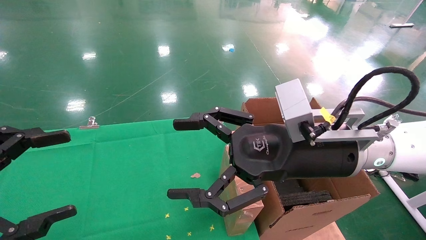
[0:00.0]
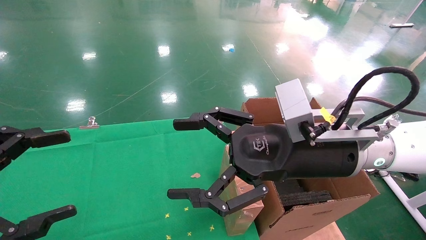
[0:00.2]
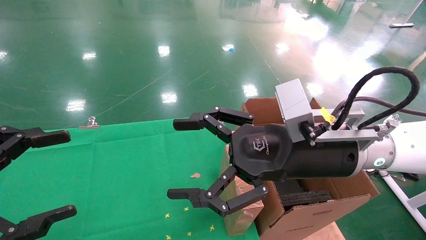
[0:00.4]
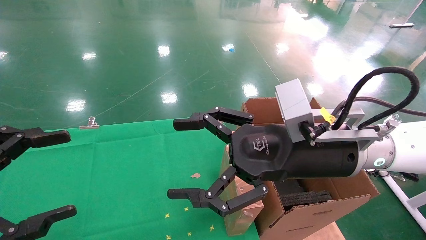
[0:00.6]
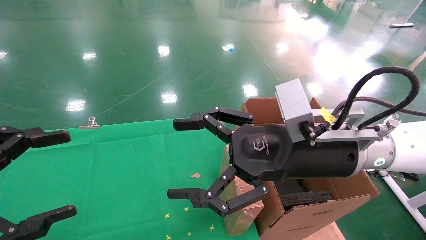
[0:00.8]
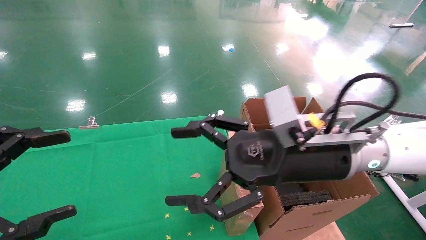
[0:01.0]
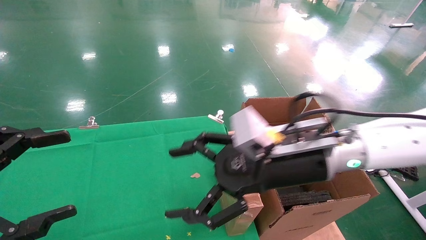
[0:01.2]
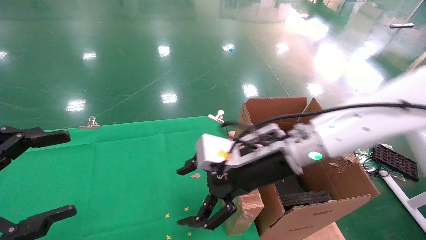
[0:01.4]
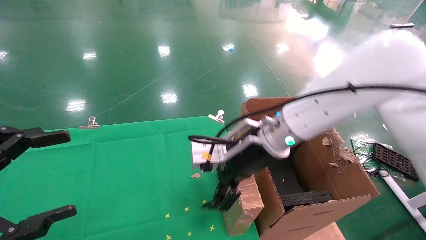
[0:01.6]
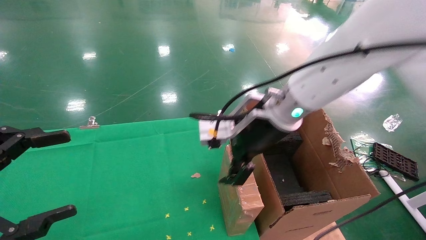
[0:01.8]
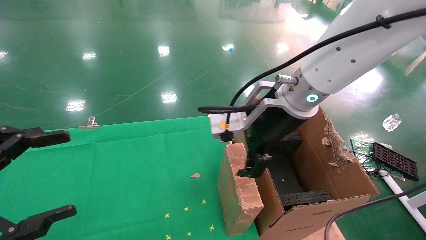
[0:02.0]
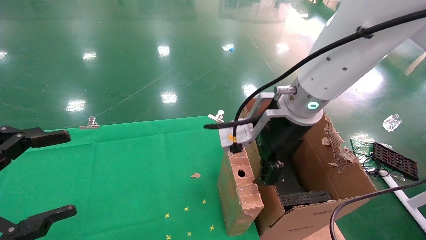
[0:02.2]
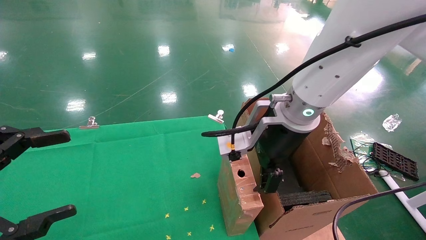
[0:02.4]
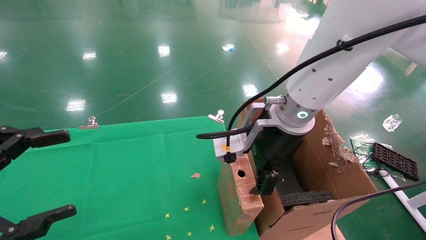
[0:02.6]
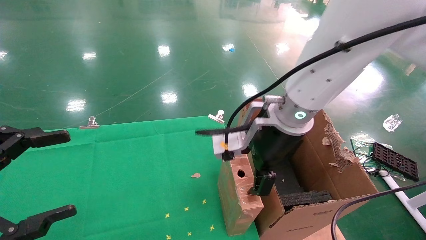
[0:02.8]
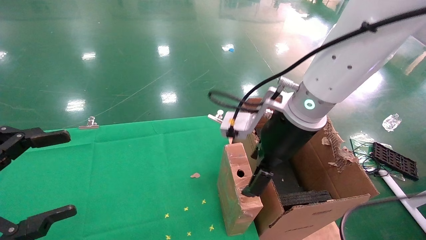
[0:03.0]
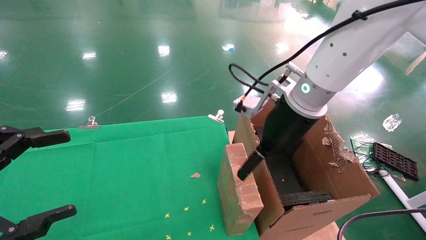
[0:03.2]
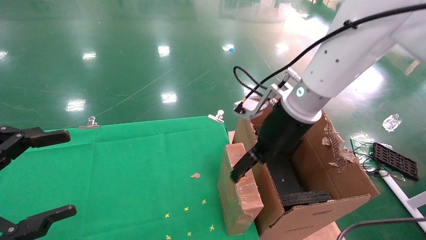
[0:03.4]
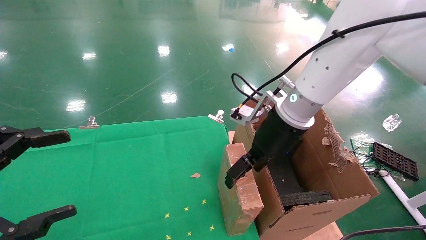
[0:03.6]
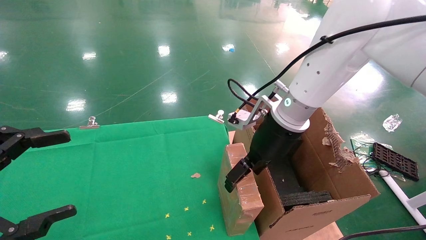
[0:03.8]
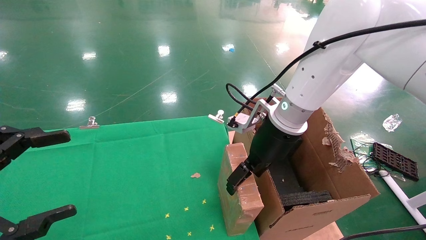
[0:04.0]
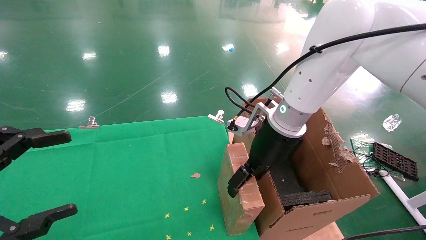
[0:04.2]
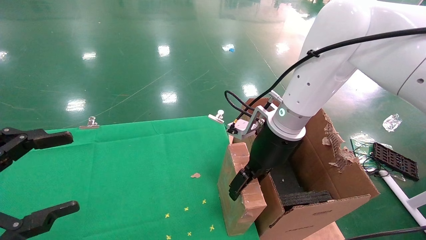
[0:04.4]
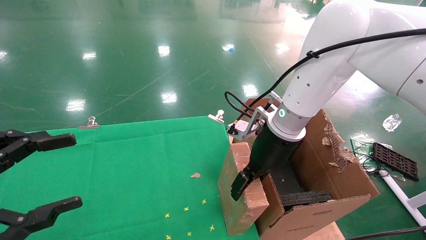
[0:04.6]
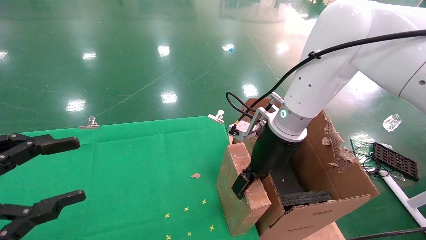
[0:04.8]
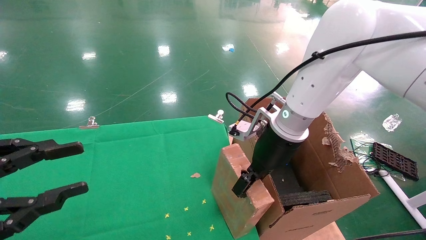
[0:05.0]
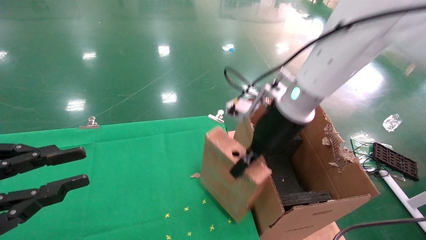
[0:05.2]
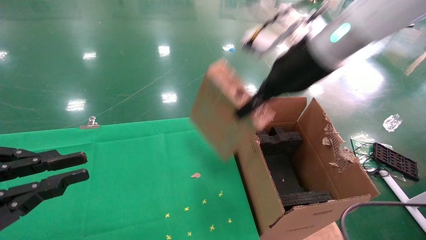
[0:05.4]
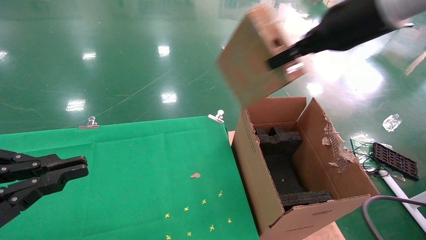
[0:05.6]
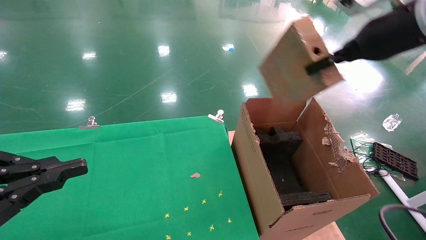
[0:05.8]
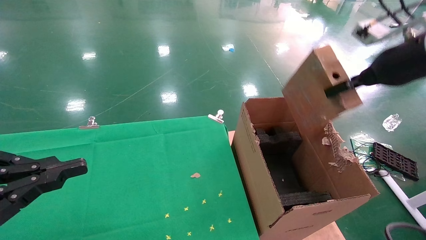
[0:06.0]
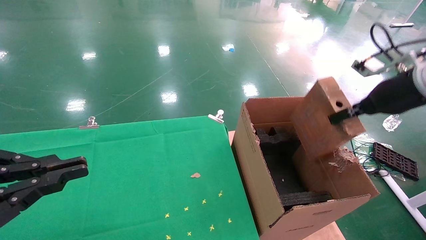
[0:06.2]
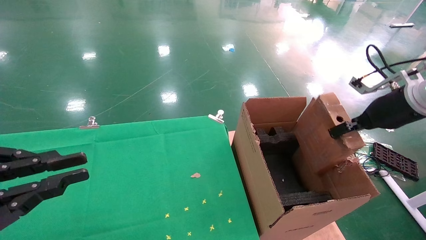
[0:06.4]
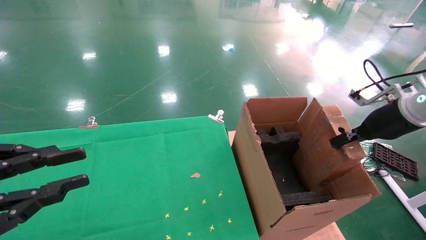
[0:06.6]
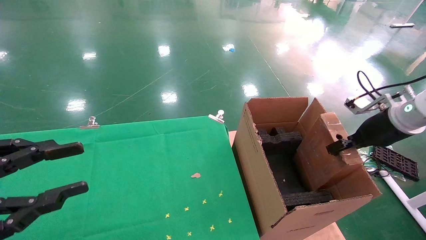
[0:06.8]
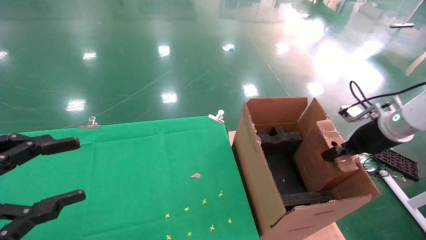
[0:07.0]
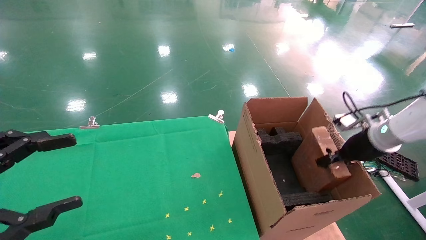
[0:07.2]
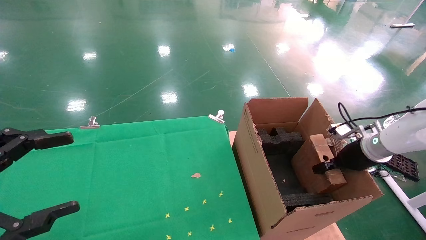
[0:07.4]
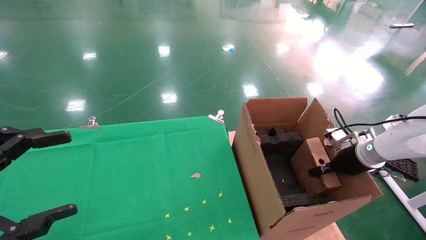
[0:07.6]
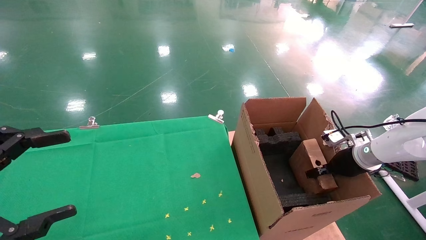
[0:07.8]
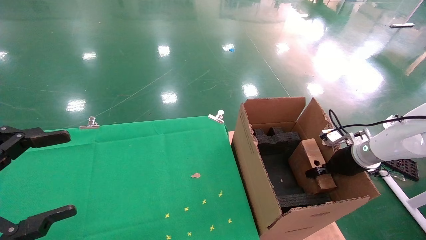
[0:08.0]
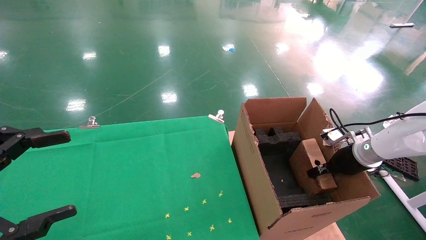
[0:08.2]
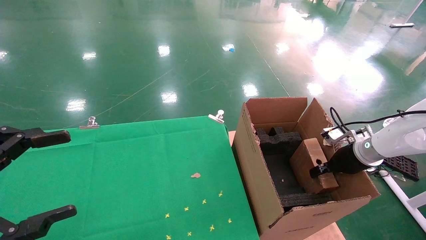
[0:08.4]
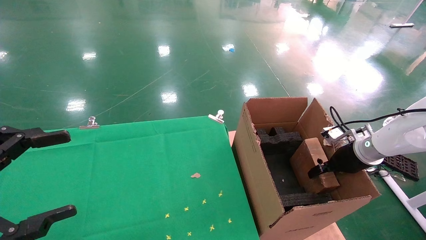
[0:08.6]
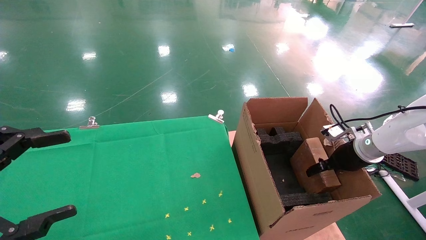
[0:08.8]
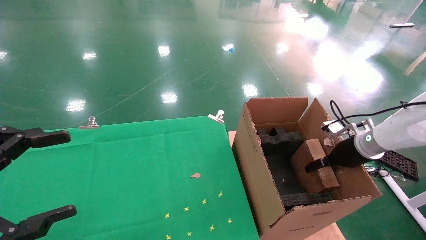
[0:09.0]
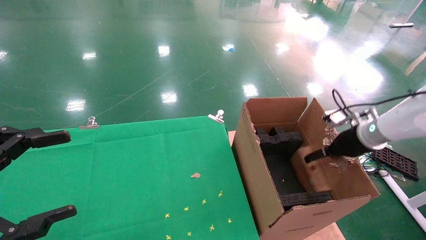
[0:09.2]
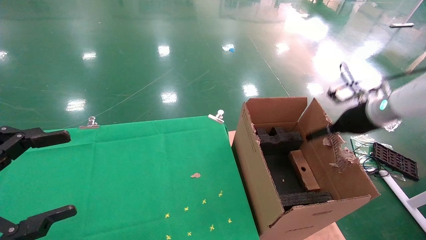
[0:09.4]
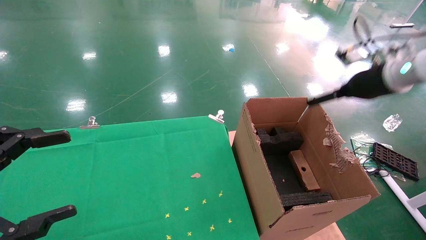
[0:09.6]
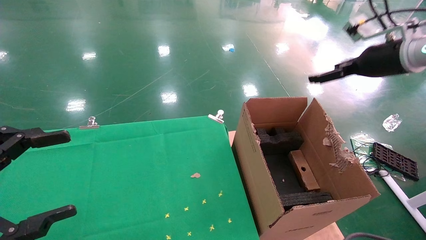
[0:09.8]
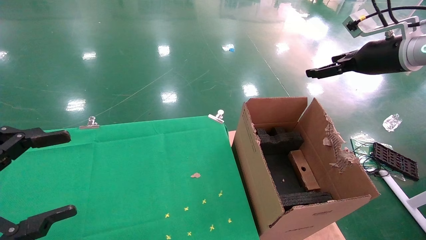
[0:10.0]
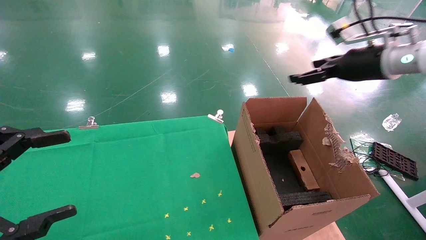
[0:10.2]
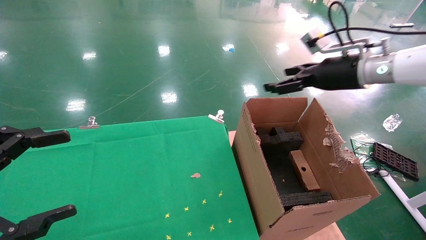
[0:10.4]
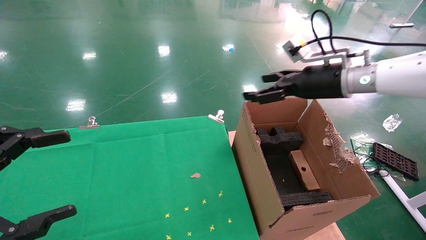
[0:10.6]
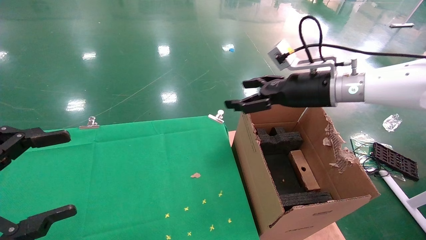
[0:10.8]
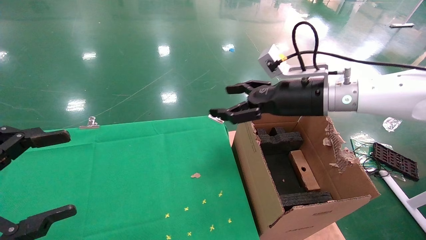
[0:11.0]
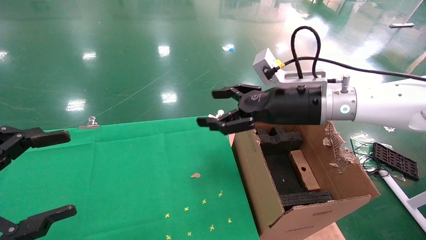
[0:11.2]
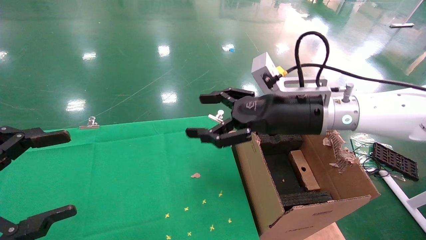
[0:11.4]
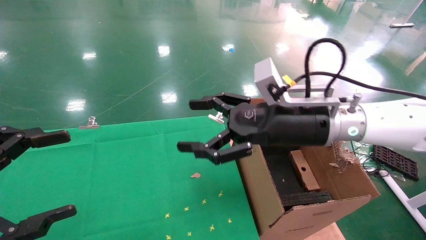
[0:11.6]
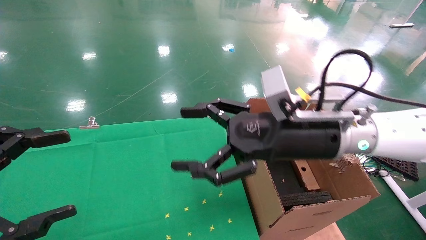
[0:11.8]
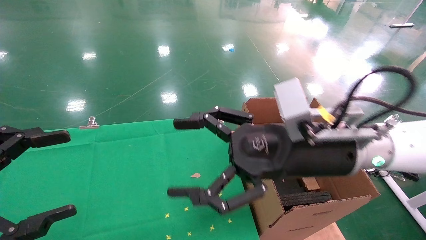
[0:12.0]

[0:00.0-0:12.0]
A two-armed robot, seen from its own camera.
Task of the whole recording: using a robotic arm to pick up a cardboard box and palace it the carton.
Step, 0:01.0 to 0:04.8: Pick up the mouse and the power cord paper box.
Step, 0:05.0 to 0:09.8: Place the mouse and the power cord paper box into the container.
0:00.0 to 0:01.6: The right gripper heads forward and to the left, covering approximately 10 cm.
0:01.6 to 0:03.0: The right gripper ends up some 5 cm from where it was.
0:03.0 to 0:04.4: The right gripper shifts by roughly 5 cm.
0:04.4 to 0:06.0: The right gripper goes approximately 25 cm to the right and upward, and closes up; the left gripper closes.
0:06.0 to 0:07.6: The left gripper opens up, while the right gripper heads downward, covering approximately 25 cm.
0:07.6 to 0:09.0: The right gripper opens.
0:09.0 to 0:10.4: The right gripper shifts approximately 20 cm upward and to the left, and opens its fingers.
0:10.4 to 0:12.0: The right gripper is displaced to the left, backward and downward by about 25 cm.

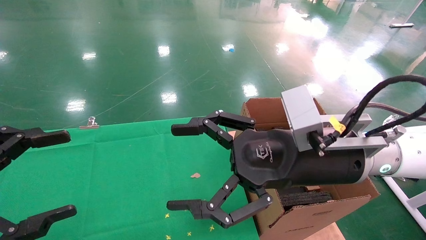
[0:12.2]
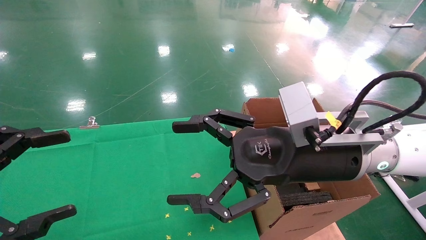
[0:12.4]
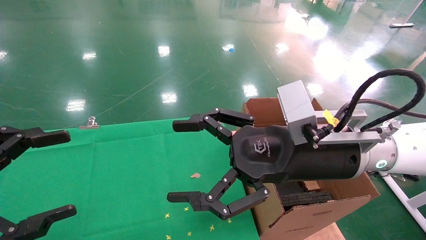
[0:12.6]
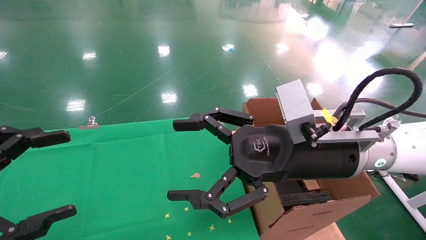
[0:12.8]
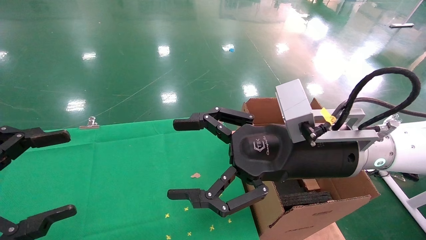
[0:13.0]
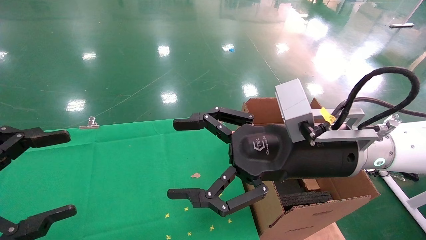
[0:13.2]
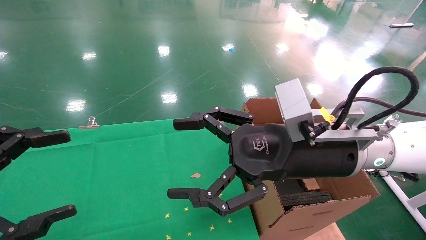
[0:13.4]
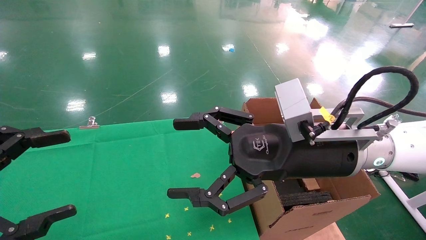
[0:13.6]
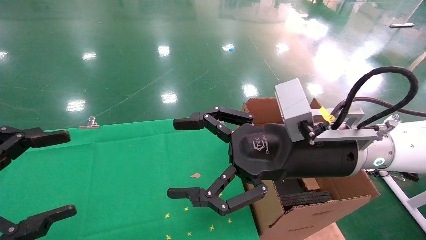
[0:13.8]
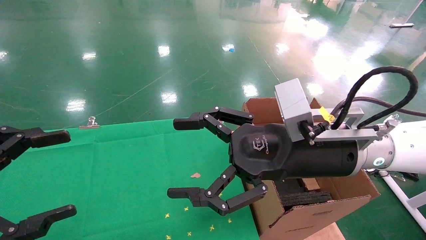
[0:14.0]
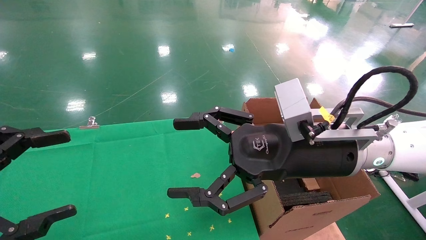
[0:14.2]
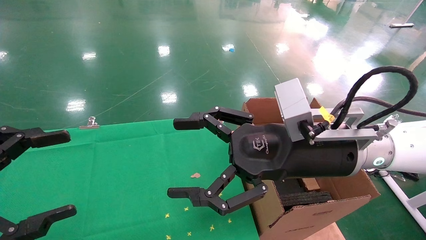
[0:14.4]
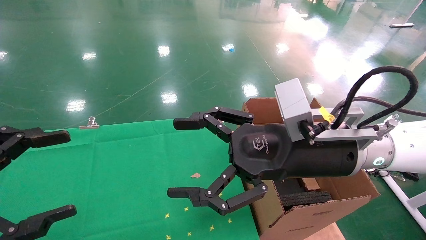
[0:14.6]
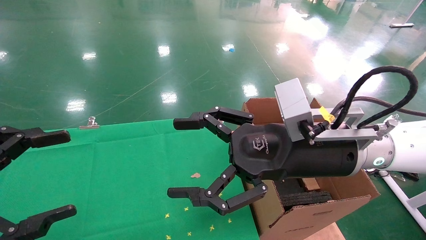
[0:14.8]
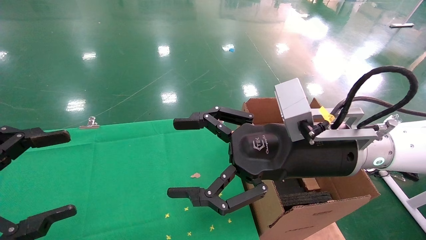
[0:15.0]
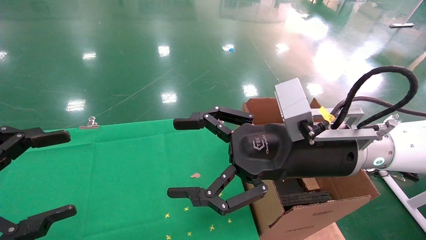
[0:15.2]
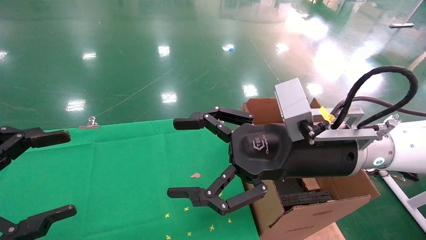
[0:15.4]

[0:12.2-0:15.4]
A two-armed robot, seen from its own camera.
Task of the whole recording: using a robotic arm to pick up a cardboard box and palace it the carton.
0:12.2 to 0:15.4: Neither gripper changes place.
